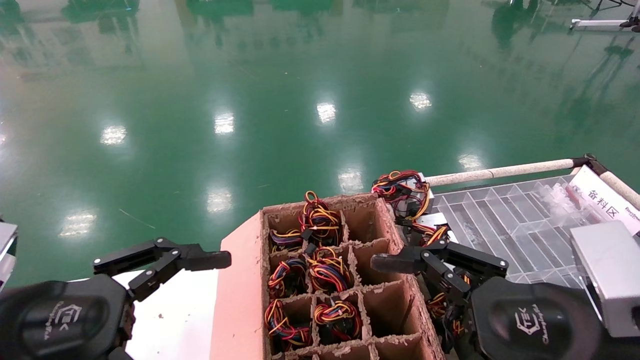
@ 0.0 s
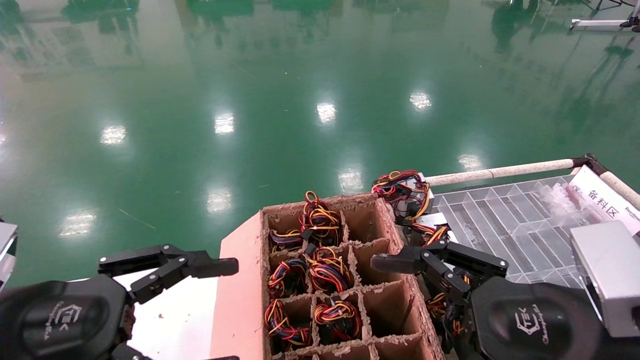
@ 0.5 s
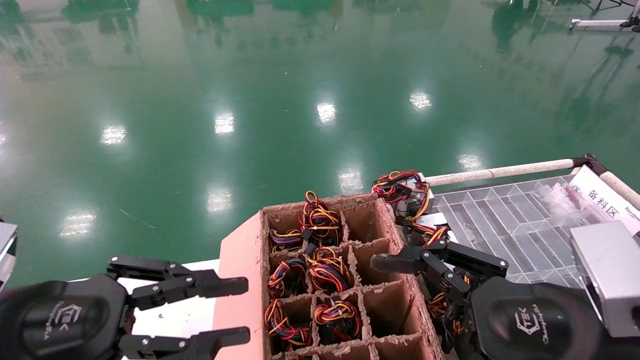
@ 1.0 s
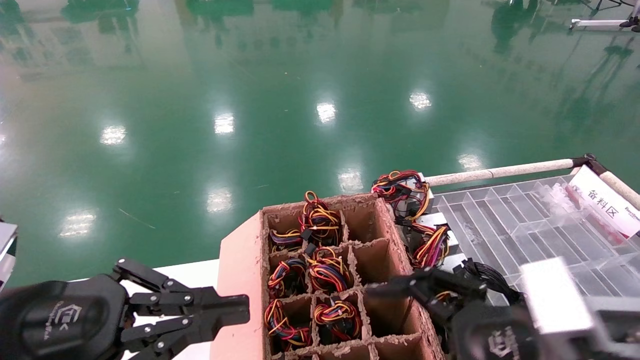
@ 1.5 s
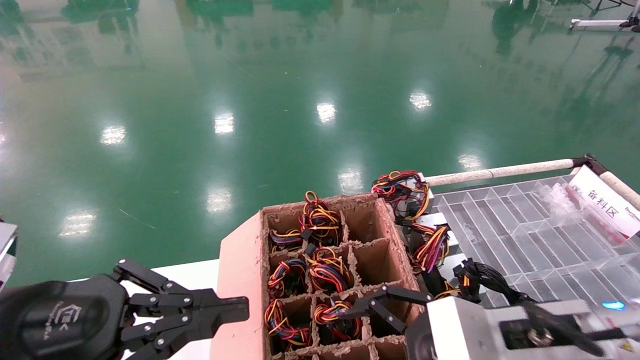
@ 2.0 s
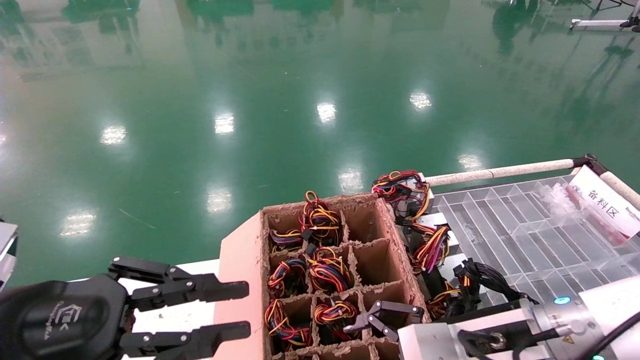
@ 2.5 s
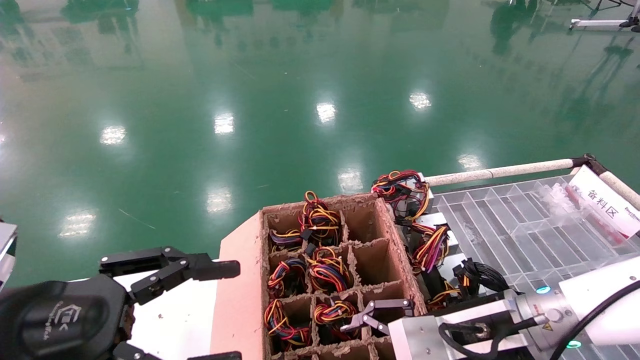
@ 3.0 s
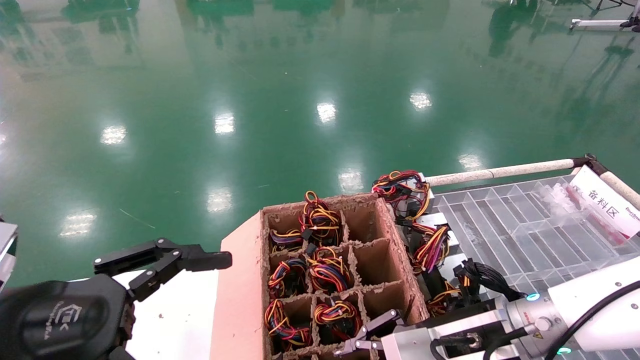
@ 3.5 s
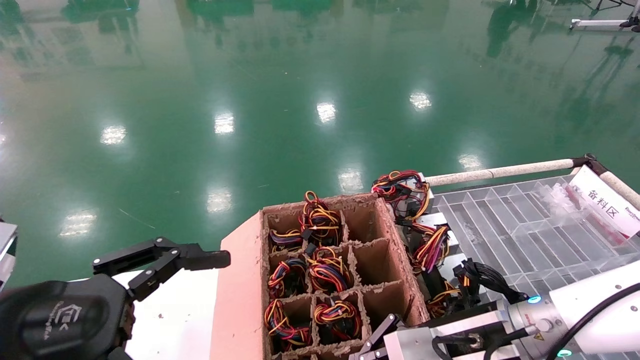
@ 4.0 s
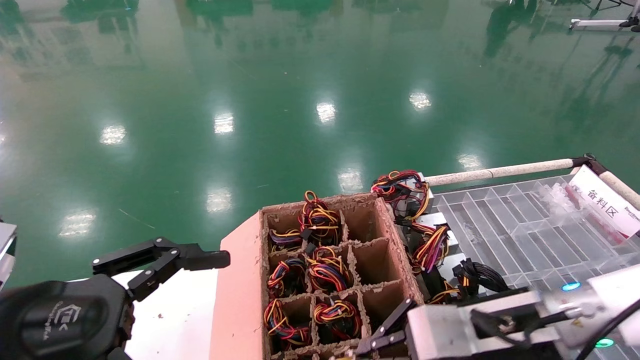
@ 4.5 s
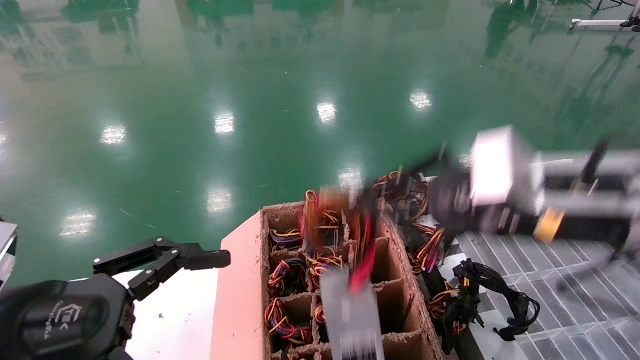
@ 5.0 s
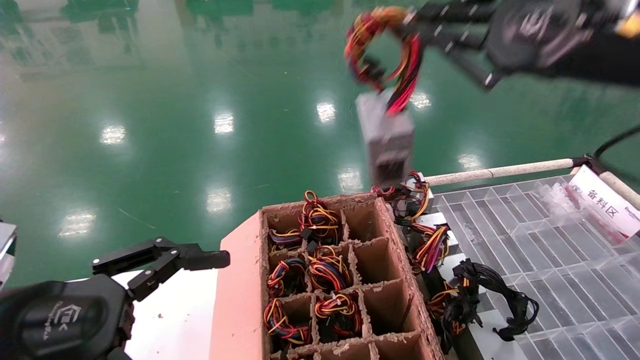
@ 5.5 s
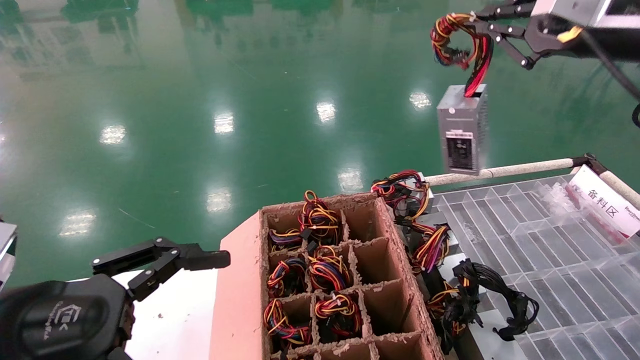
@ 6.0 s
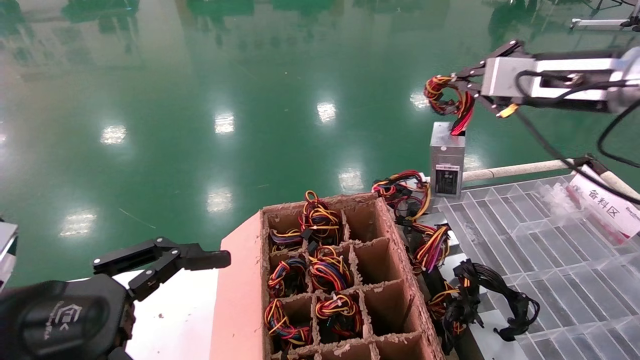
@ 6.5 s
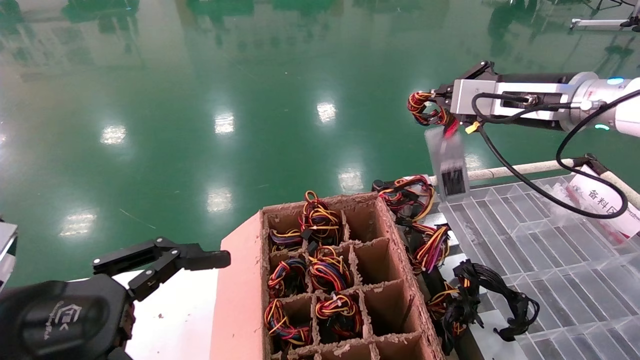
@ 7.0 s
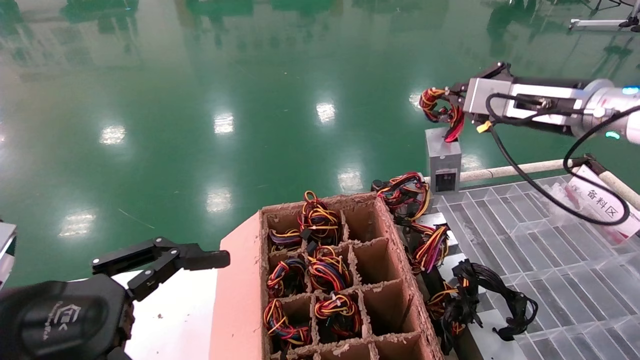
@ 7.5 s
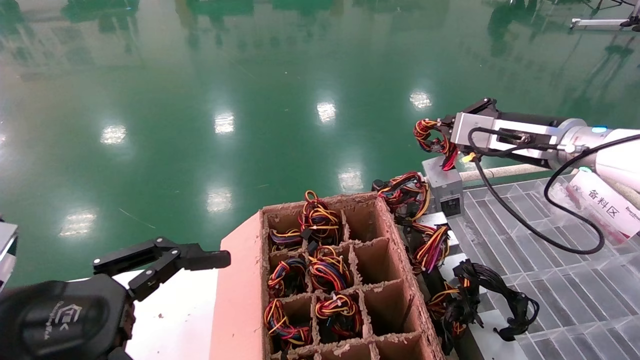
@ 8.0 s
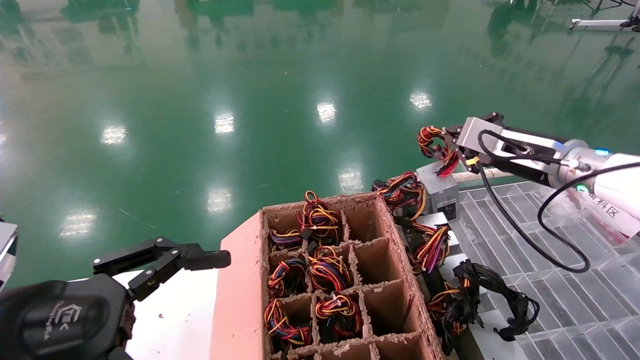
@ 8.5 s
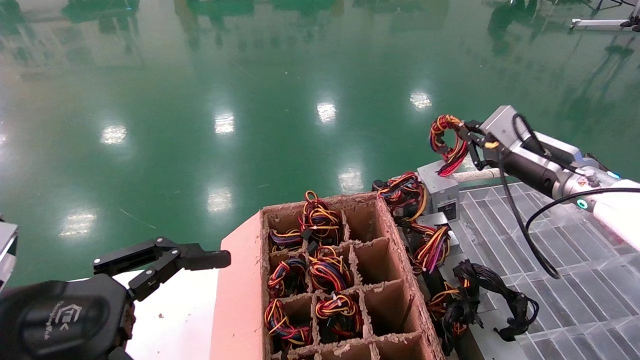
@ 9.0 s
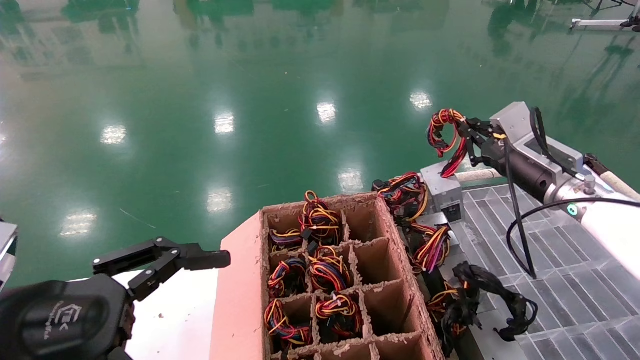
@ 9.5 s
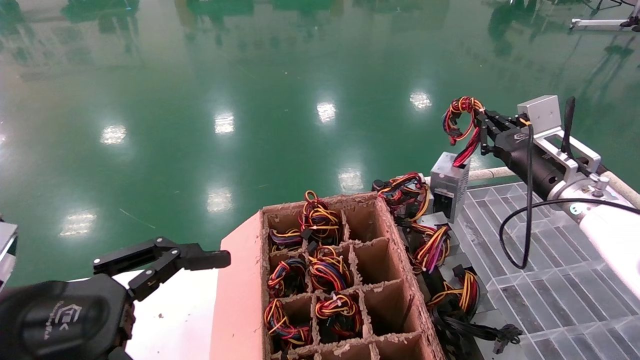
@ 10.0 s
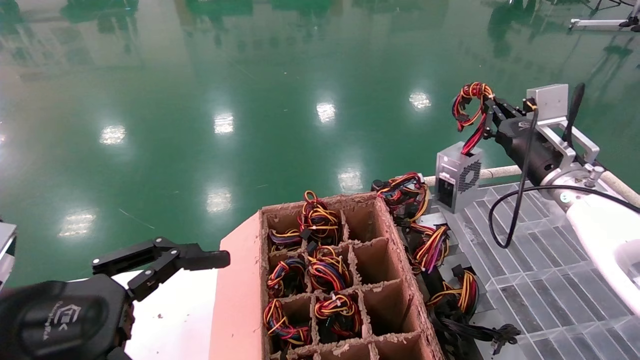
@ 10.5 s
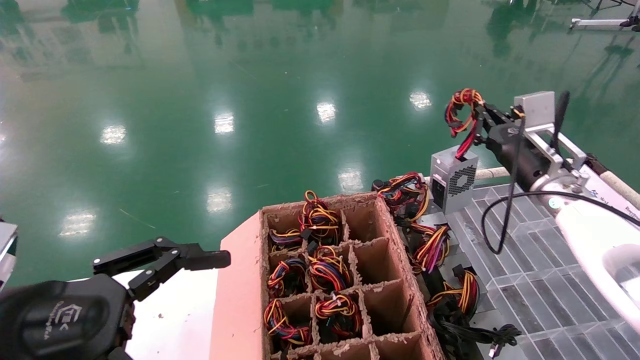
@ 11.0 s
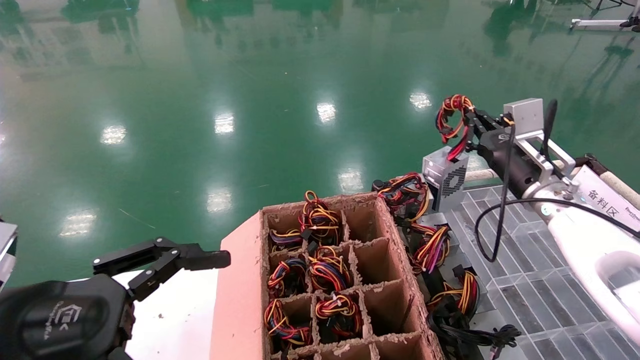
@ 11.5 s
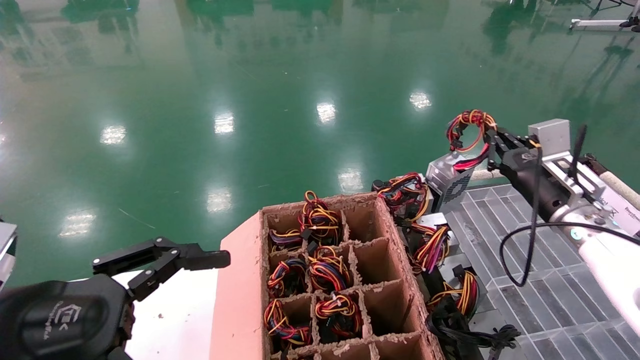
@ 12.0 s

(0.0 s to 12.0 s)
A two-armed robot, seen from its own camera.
Step, 2.0 s - 4.0 s: Grab and lift the power supply from the large box.
0.0 s - 2.0 s: The left gripper closes, while the right gripper heads forward, covering roughly 5 cm.
2.0 s - 4.0 s: The right gripper travels forward by some 5 cm, and closes up; the left gripper opens.
4.0 s - 6.0 s: The right gripper goes about 35 cm upward and to the right.
6.0 s - 8.0 s: The right gripper travels downward and forward by about 15 cm.
8.0 s - 10.0 s: The right gripper moves downward, approximately 10 cm.
10.0 s - 12.0 s: The grippers move only a little.

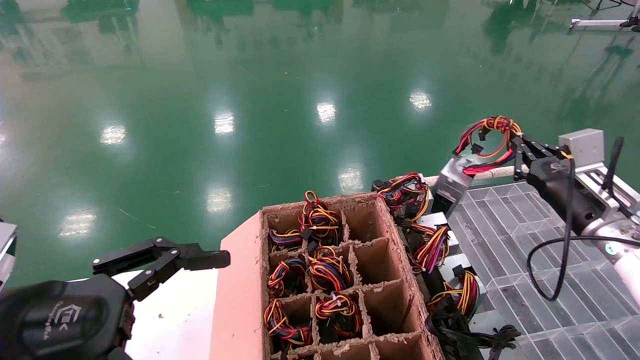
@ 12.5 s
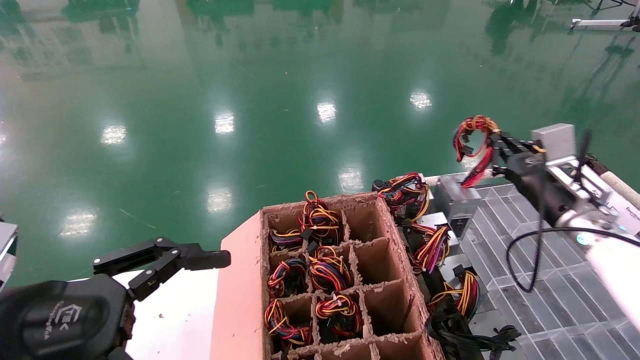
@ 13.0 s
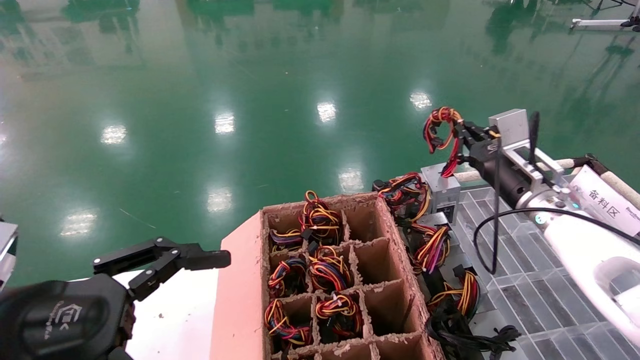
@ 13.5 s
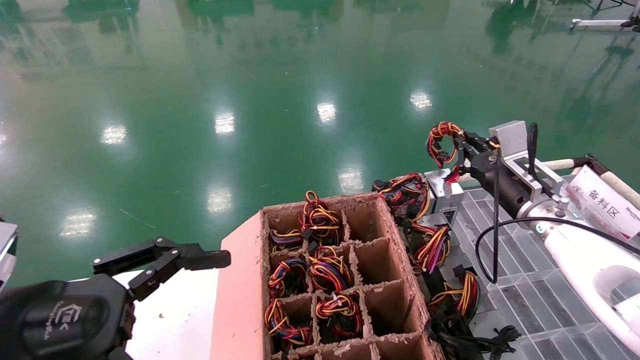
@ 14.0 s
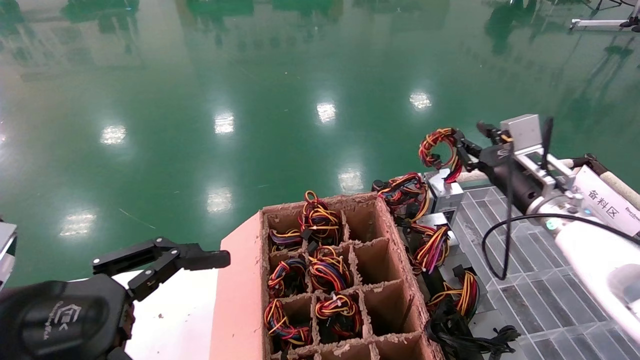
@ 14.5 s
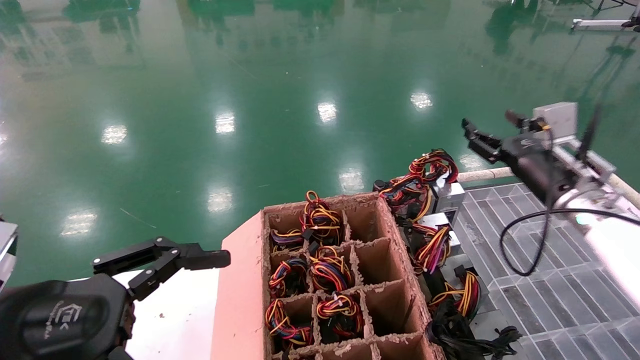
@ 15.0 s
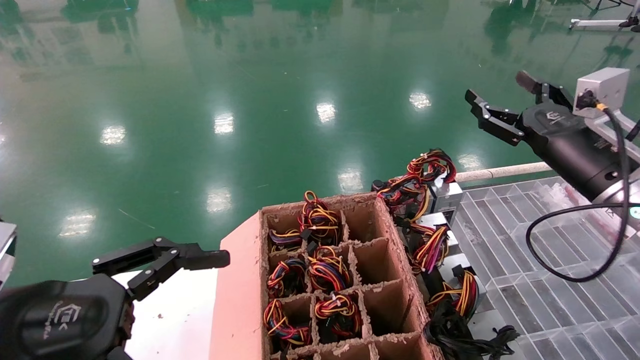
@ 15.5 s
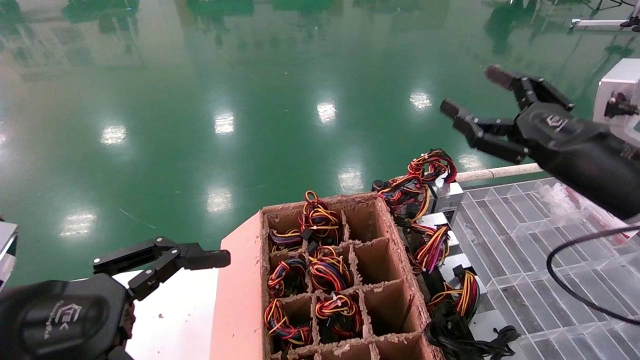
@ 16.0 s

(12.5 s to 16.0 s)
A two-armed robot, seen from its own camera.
12.5 s - 14.5 s: The right gripper shifts some 5 cm to the left.
14.5 s - 16.0 s: The right gripper heads backward and upward, covering about 15 cm, and opens its fingers.

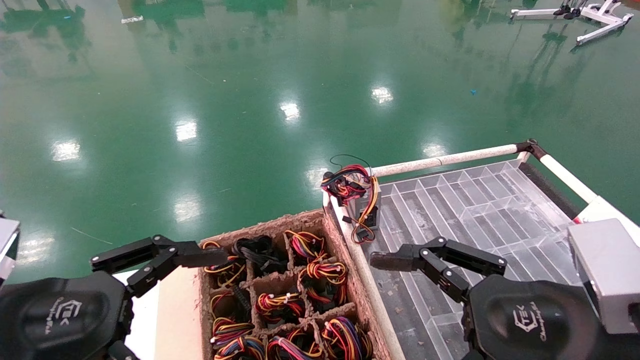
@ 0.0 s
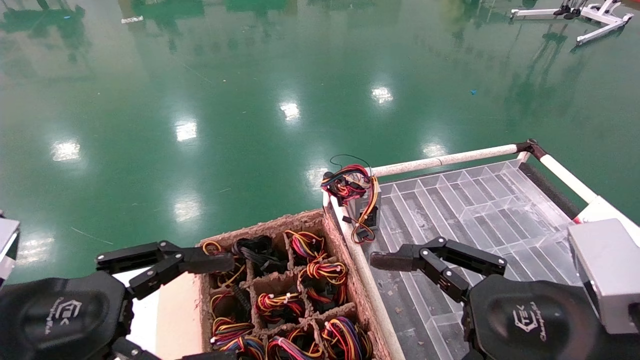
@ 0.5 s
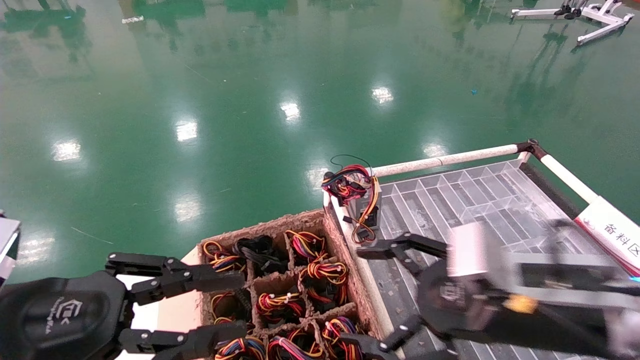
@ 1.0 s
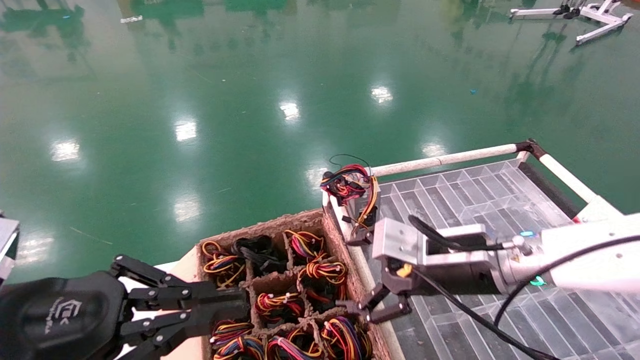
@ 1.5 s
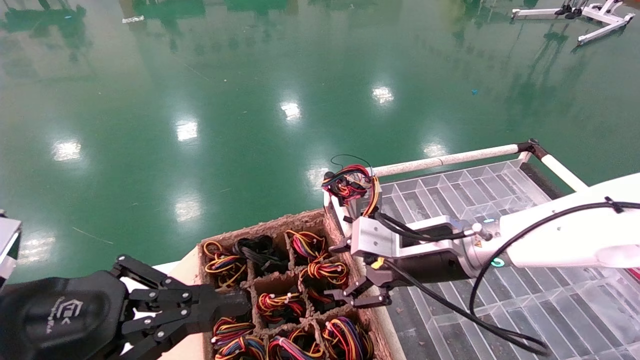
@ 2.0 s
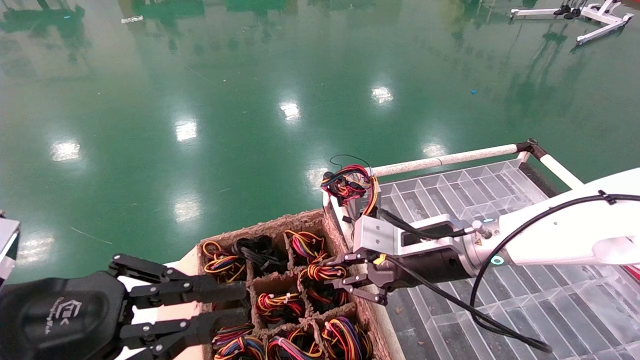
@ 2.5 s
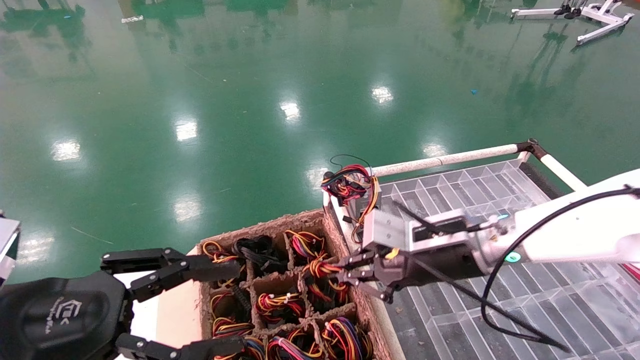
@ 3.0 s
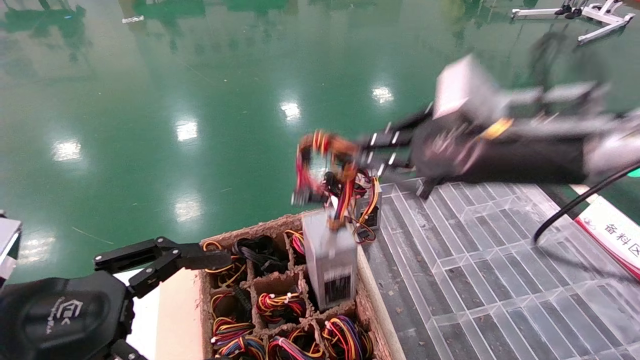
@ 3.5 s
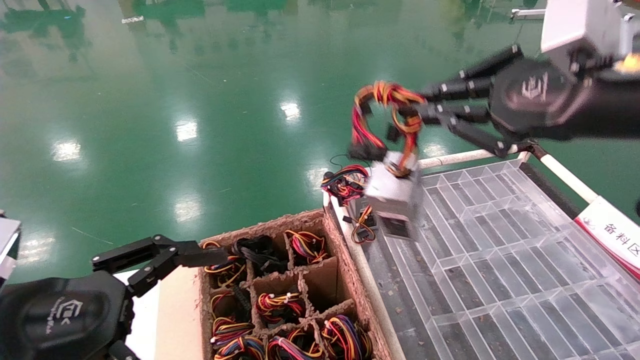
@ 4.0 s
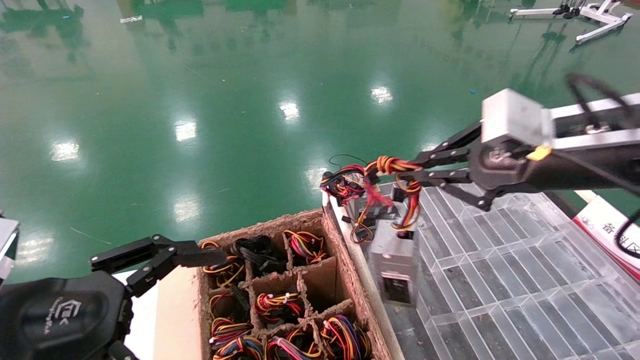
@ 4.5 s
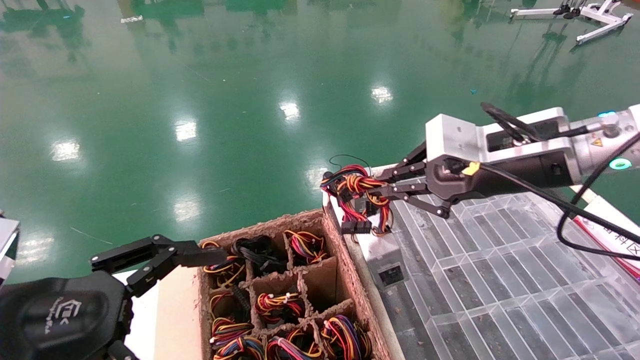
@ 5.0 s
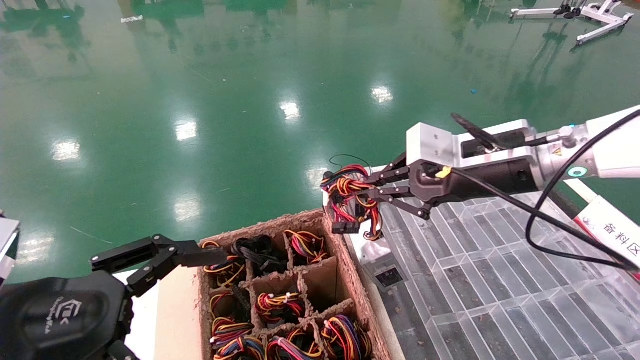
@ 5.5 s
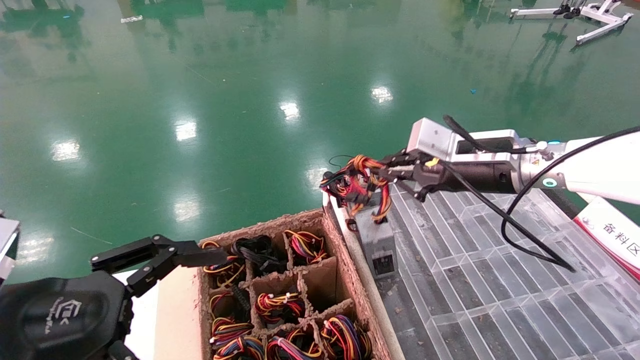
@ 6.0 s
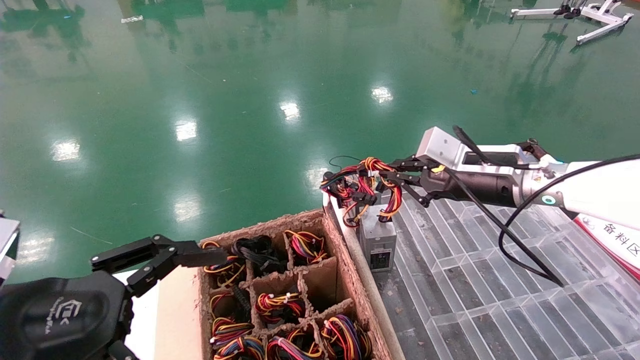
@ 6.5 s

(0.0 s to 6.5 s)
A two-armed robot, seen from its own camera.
Step, 1.0 s - 2.5 s: Grab and lift the power supply from the large box.
0.0 s - 2.0 s: The left gripper closes its fingers; the right gripper is displaced forward and to the left by about 20 cm.
2.0 s - 4.5 s: The left gripper opens its fingers, while the right gripper moves upward, to the right and backward, about 20 cm, and closes its fingers.
4.5 s - 6.5 s: The right gripper shifts about 15 cm forward and downward.
